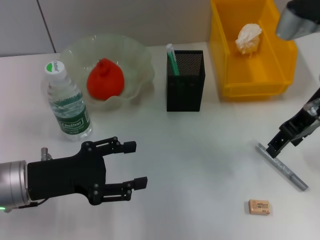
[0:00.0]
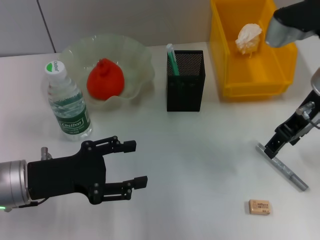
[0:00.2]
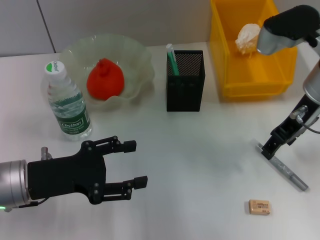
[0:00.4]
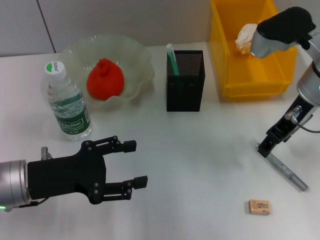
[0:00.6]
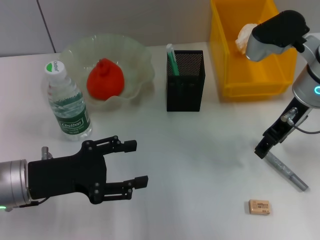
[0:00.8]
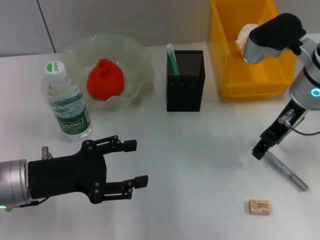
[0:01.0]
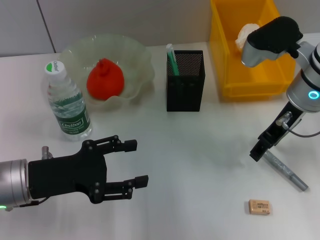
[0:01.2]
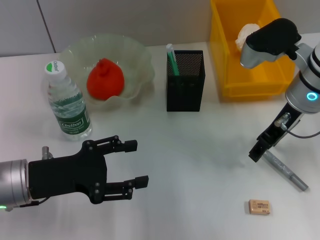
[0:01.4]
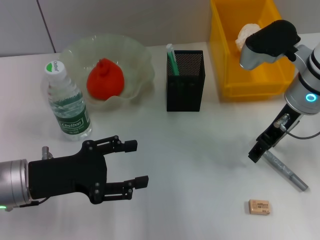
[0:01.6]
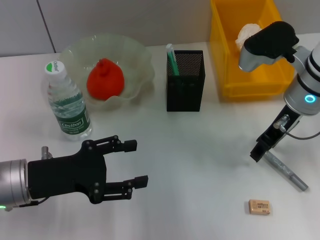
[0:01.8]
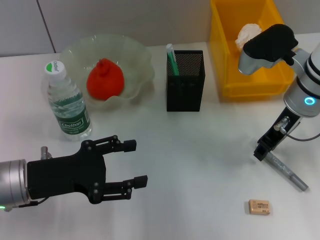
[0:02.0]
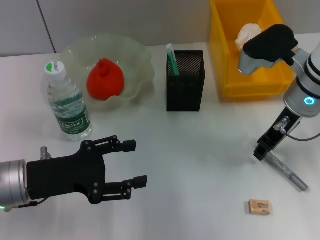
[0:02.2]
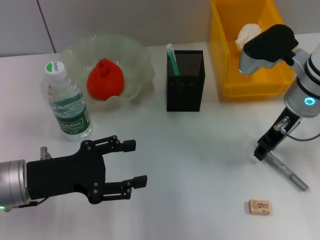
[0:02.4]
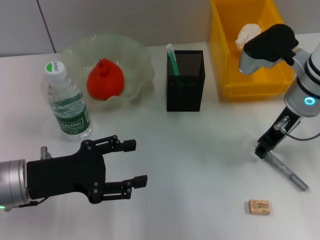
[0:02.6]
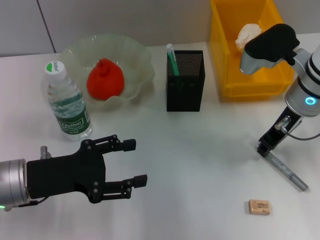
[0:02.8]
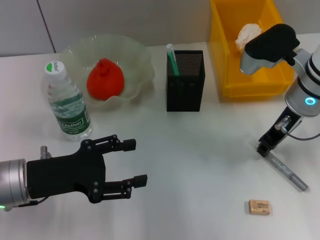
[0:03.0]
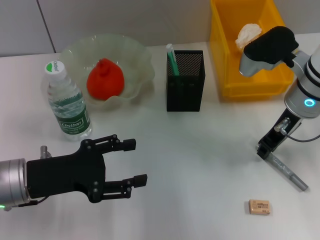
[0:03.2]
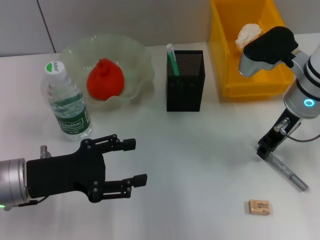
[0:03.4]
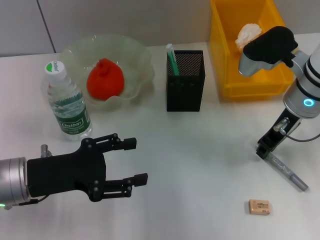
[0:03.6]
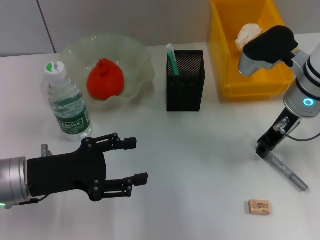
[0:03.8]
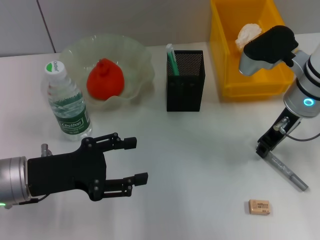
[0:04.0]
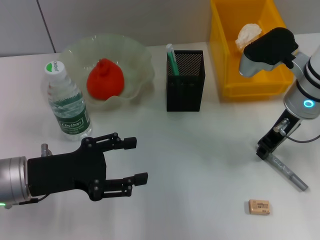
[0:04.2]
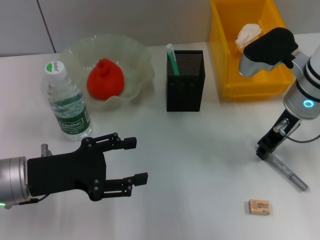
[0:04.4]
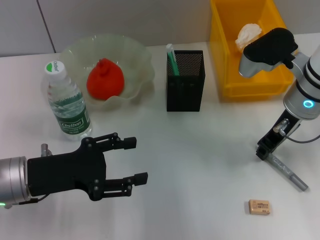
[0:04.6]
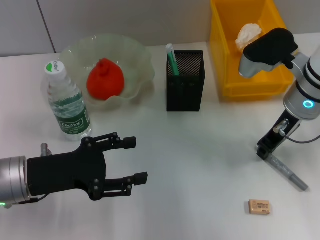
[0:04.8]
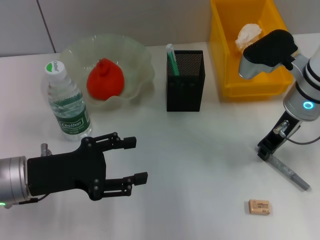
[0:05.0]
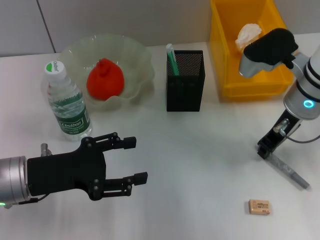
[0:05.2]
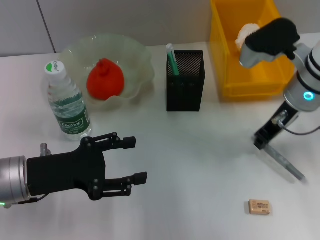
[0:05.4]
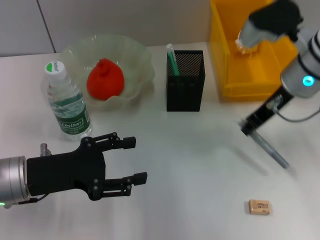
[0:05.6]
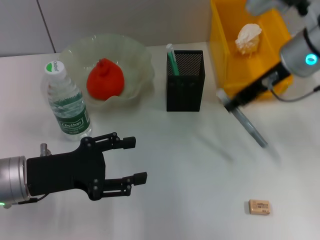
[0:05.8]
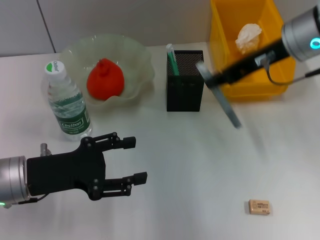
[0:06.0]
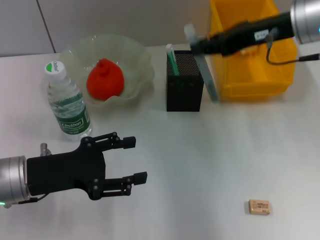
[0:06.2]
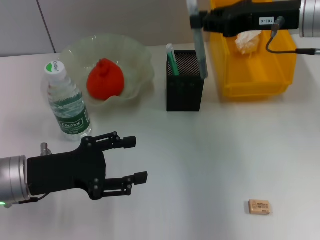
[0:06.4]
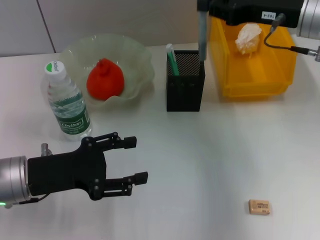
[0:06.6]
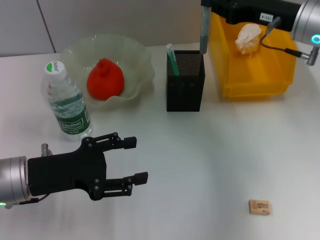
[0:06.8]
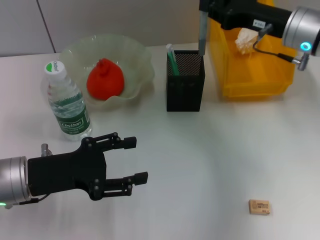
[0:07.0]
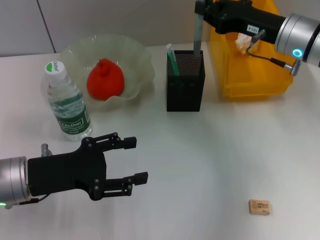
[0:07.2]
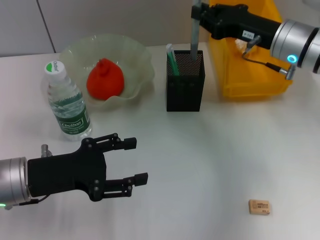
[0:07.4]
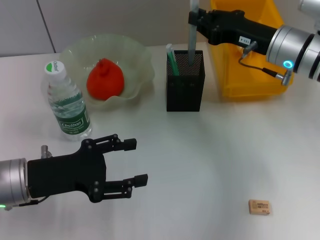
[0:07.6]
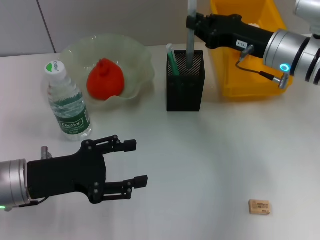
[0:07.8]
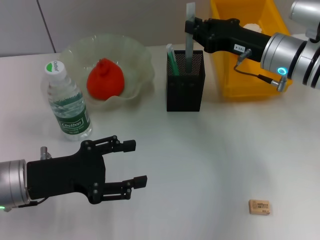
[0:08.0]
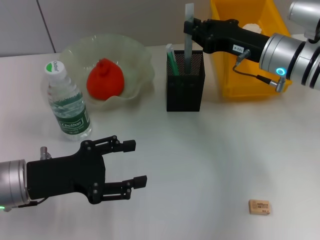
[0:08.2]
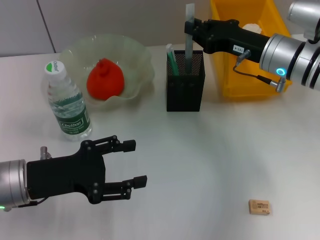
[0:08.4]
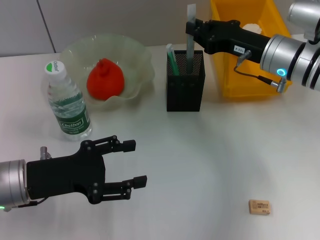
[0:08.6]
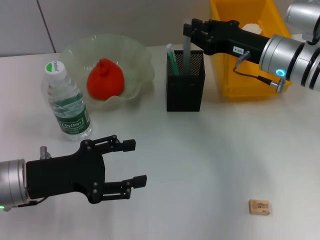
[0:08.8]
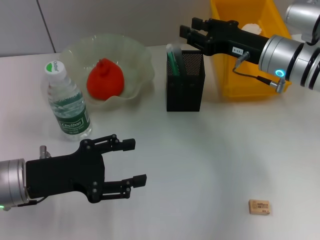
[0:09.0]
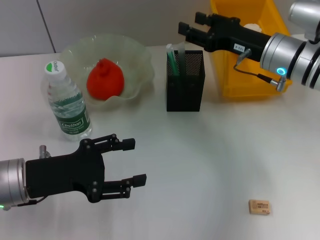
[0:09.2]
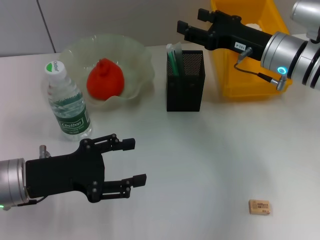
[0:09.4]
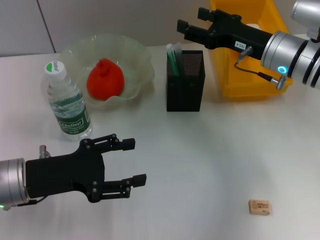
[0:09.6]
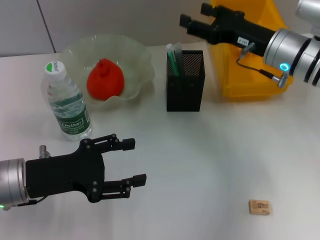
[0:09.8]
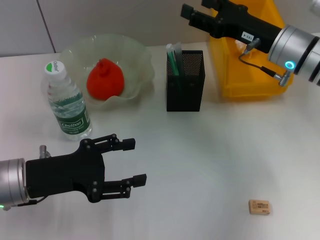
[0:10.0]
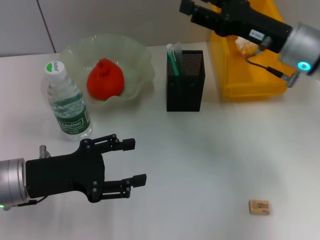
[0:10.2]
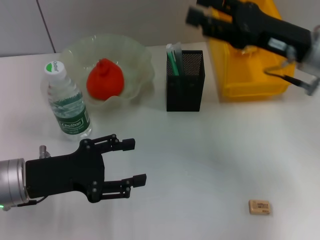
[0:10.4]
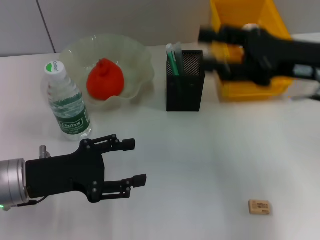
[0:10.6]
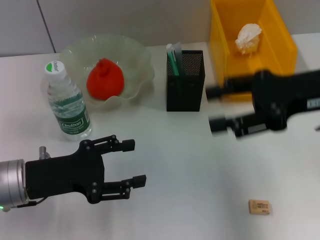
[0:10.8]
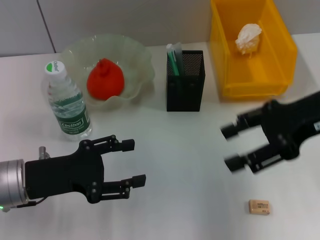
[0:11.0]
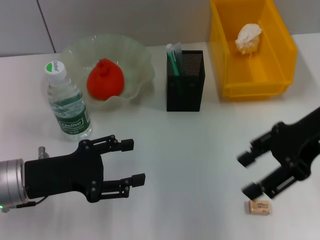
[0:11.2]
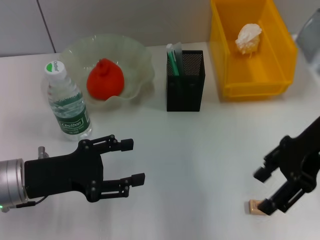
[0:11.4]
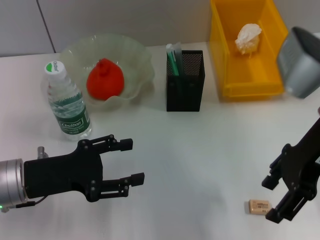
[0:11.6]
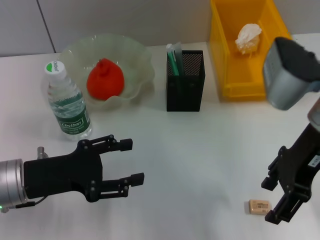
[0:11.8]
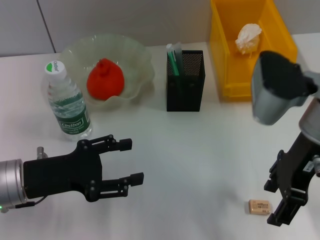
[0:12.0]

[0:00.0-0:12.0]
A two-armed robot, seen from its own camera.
Step, 0:00.0 to 0:05.0: Grab the gray glue with the right hand.
Step, 0:05.2 to 0:09.0: Place the gray glue into the pen holder with the right hand.
0:00.0 to 0:01.6: The right gripper changes place by roughly 5 cm.
0:01.6 to 0:03.0: The right gripper closes.
0:03.0 to 0:04.4: The two grippers keep their place.
0:04.4 to 0:06.0: The right gripper moves upward, approximately 10 cm.
0:06.0 to 0:07.6: The right gripper is displaced downward by roughly 10 cm.
0:07.6 to 0:09.0: Both grippers stay put.
0:09.0 to 0:10.4: The right gripper moves backward and upward, some 10 cm, and opens.
0:10.4 to 0:12.0: The right gripper changes place by roughly 5 cm.

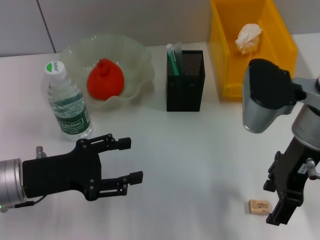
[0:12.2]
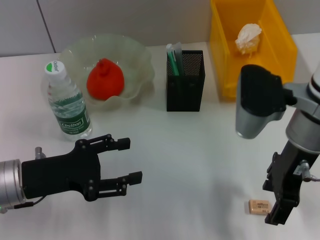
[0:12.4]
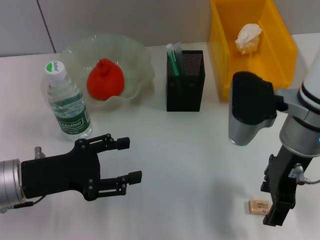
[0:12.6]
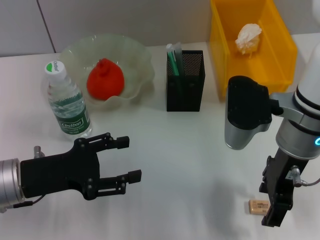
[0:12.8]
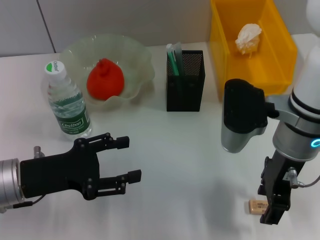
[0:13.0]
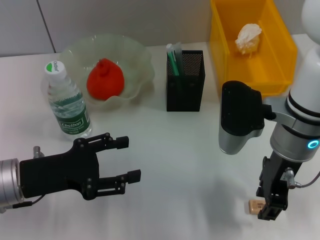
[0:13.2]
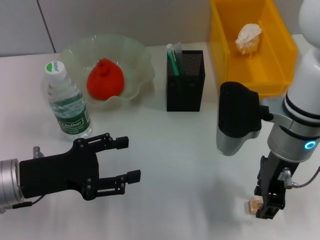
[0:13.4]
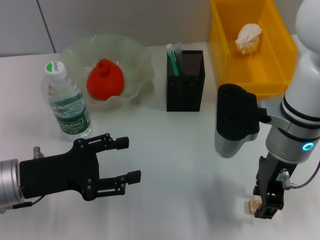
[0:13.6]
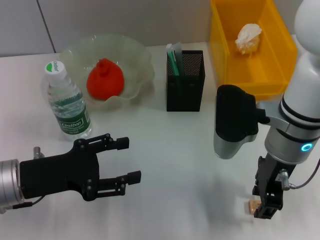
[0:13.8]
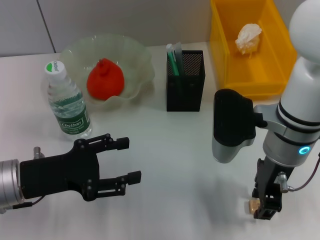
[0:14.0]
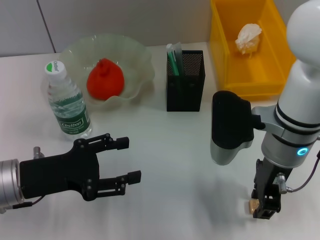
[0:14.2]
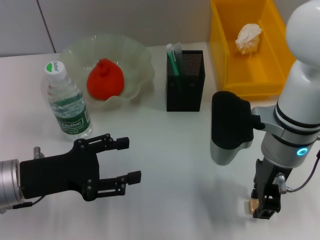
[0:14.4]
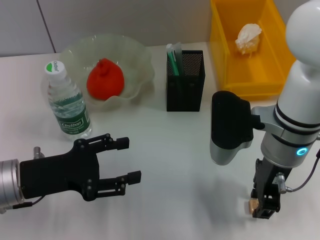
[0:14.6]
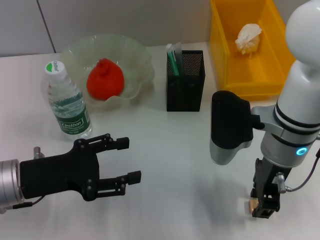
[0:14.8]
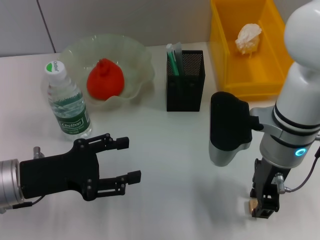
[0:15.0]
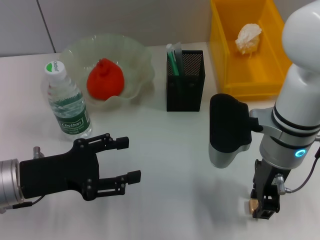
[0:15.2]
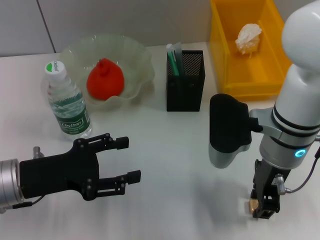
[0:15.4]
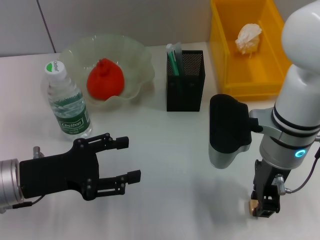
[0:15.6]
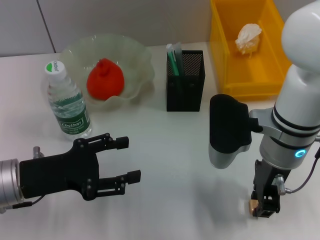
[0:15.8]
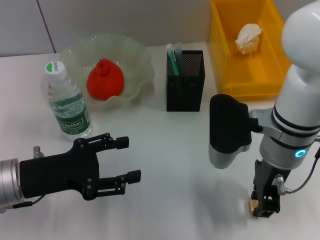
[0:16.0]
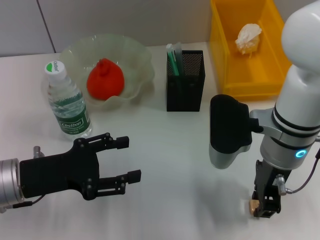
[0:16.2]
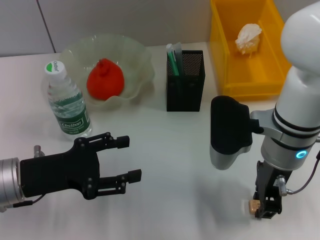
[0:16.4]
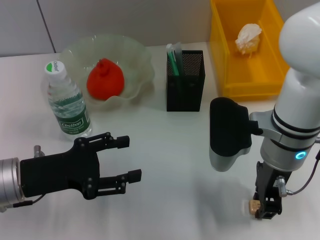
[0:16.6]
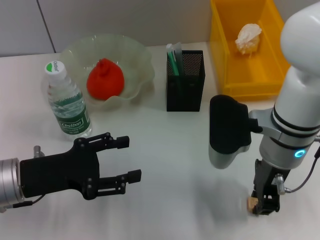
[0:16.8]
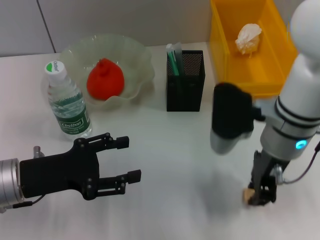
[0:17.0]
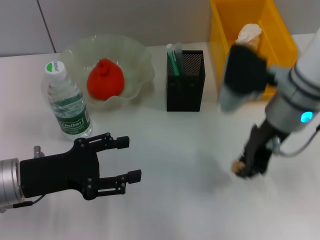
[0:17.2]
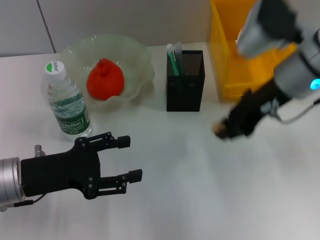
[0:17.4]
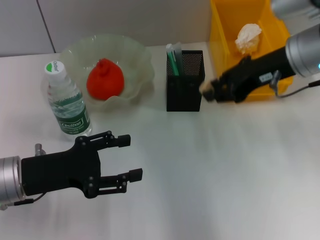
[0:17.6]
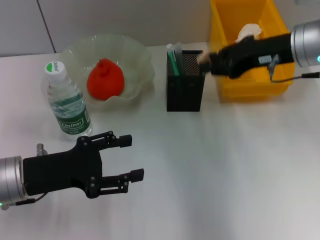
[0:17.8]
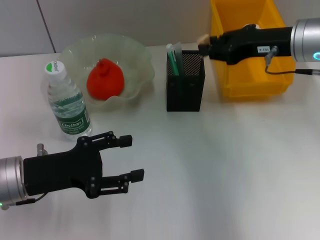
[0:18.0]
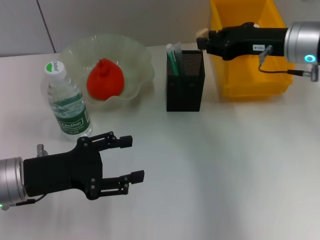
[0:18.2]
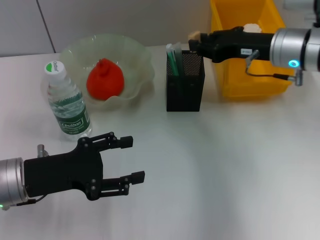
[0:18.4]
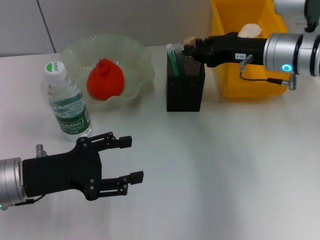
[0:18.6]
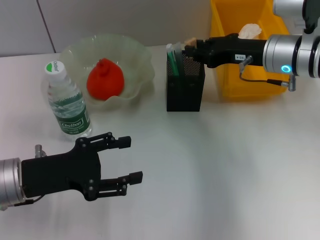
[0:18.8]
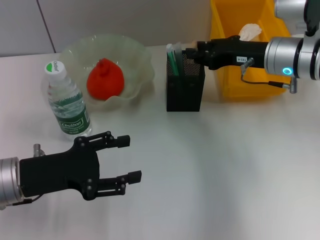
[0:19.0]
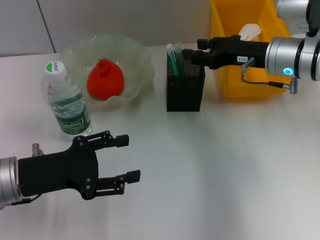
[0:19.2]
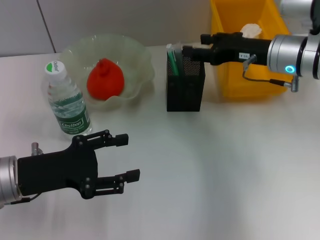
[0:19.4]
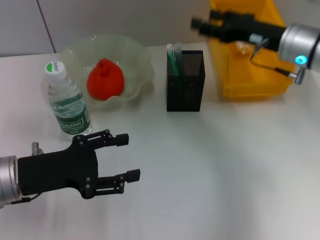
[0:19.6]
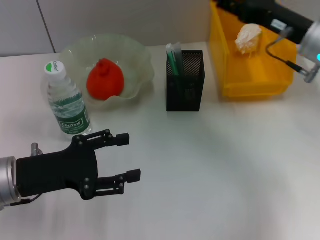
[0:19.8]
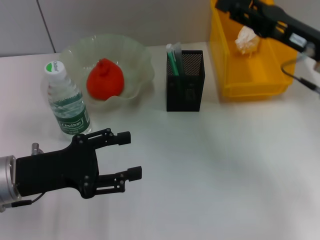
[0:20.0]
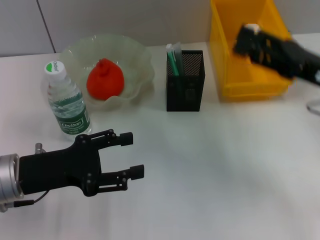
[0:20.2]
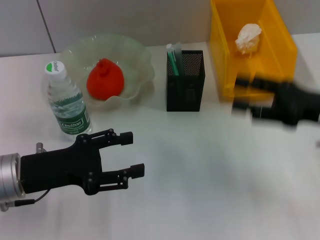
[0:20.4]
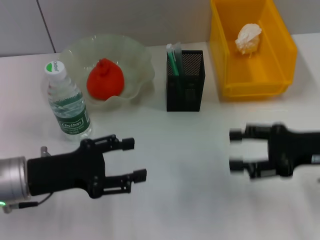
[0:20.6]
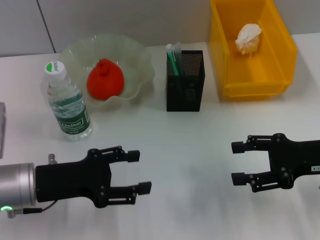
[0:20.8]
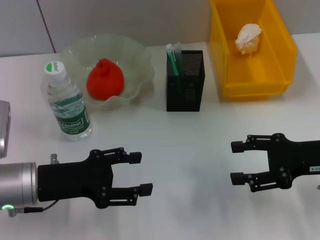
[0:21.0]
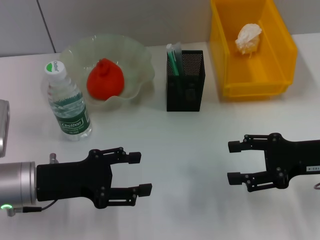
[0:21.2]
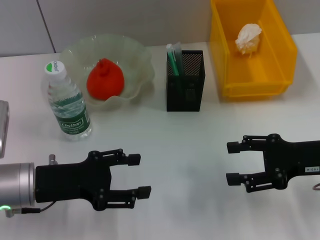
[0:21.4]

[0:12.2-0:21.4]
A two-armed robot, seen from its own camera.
Step, 0:12.2 to 0:16.4: Grab the eraser with the right hand.
Step, 0:16.6 to 0:19.2: Put the eraser into the pen holder with the right hand.
0:12.2 to 0:13.8: The right gripper closes up.
0:13.8 to 0:15.2: The two grippers keep their place.
0:15.2 to 0:16.8: Both grippers stay about where they are.
0:16.8 to 0:18.4: The right gripper travels forward and to the right by approximately 10 cm.
0:18.4 to 0:19.8: The right gripper opens its fingers.
0:19.8 to 0:21.4: The right gripper goes roughly 10 cm backward and downward.

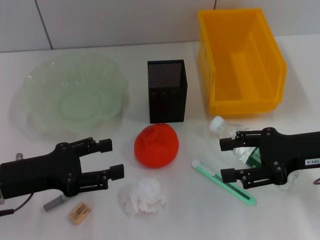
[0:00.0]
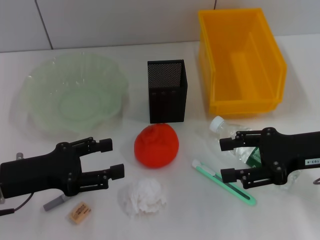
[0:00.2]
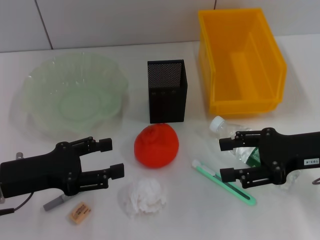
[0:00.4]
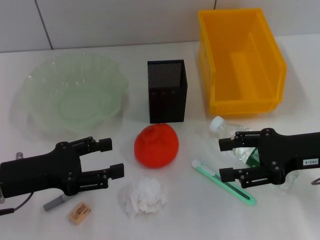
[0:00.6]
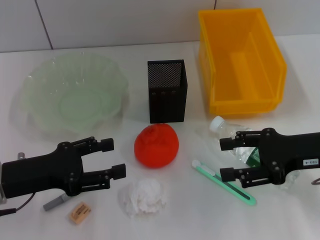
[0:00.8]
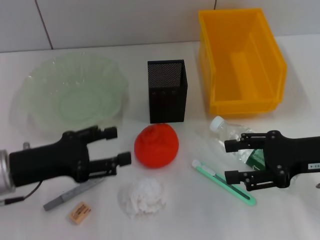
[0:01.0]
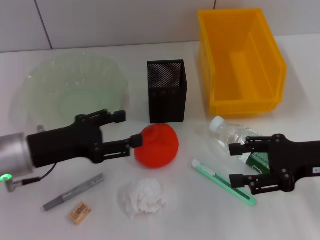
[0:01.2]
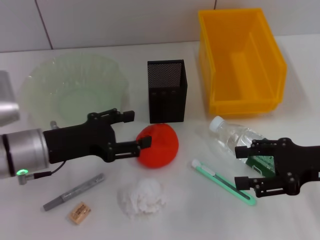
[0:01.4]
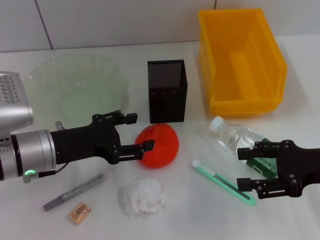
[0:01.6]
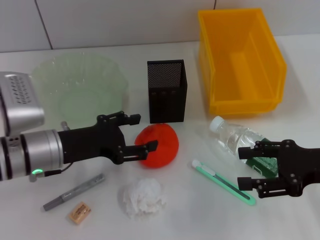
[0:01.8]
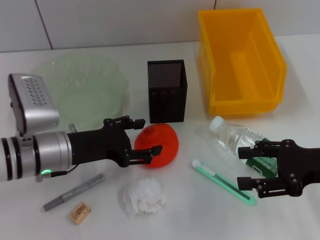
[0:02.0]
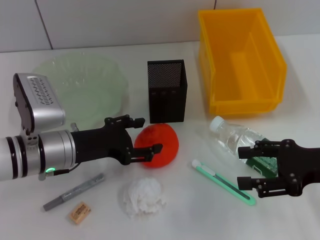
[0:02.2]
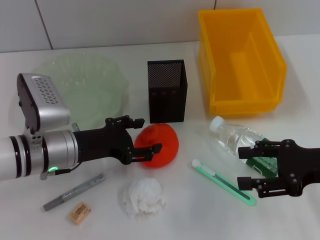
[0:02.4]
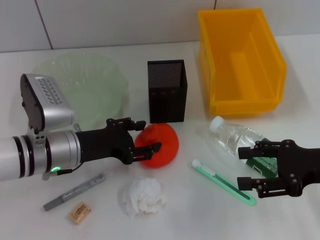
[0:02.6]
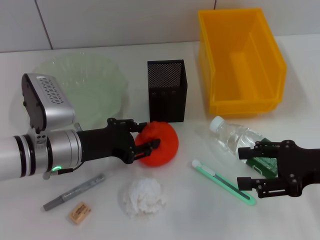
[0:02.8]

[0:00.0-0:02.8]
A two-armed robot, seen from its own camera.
0:00.0 to 0:01.4: The left gripper ends up some 5 cm from where it was.
0:01.4 to 0:02.8: The grippers move only a little.
